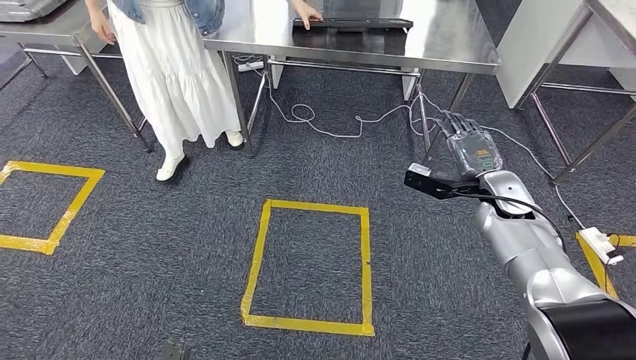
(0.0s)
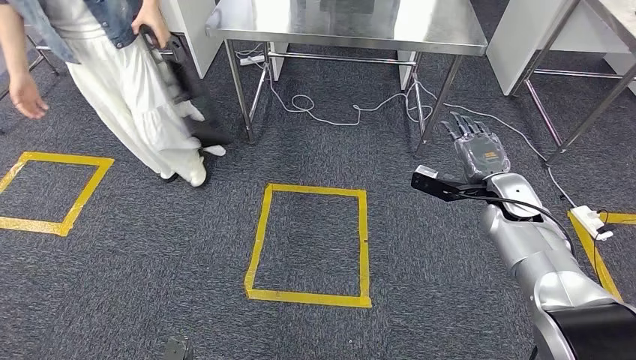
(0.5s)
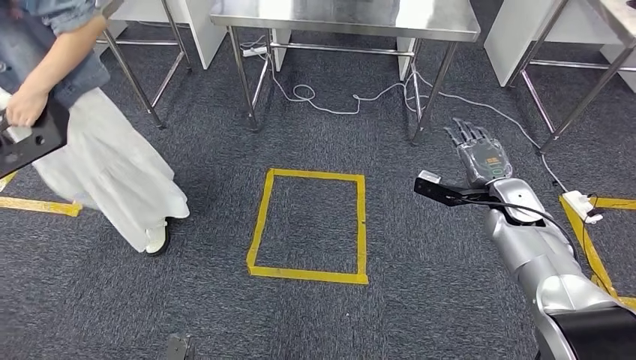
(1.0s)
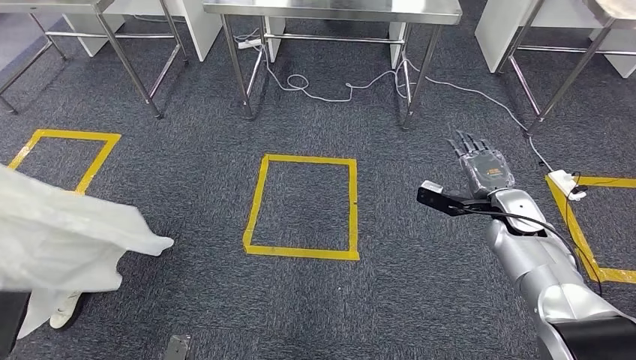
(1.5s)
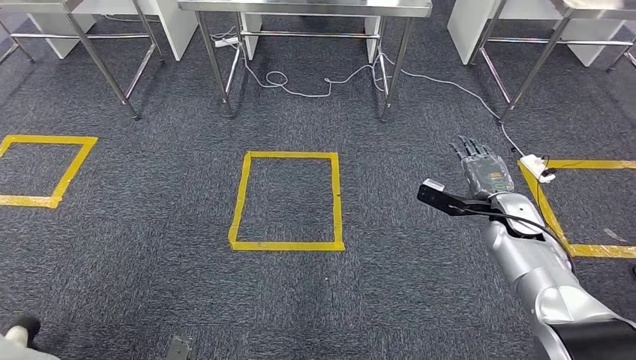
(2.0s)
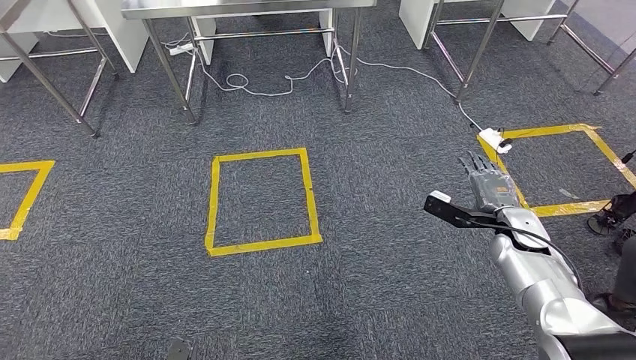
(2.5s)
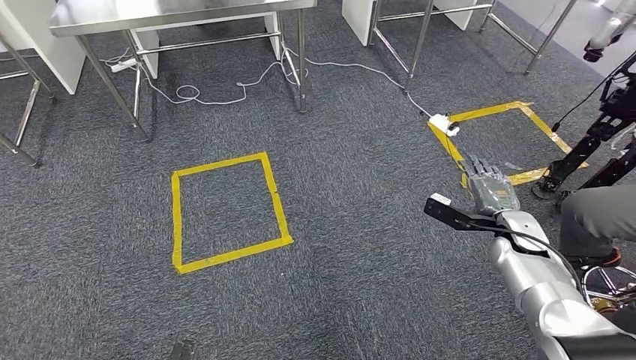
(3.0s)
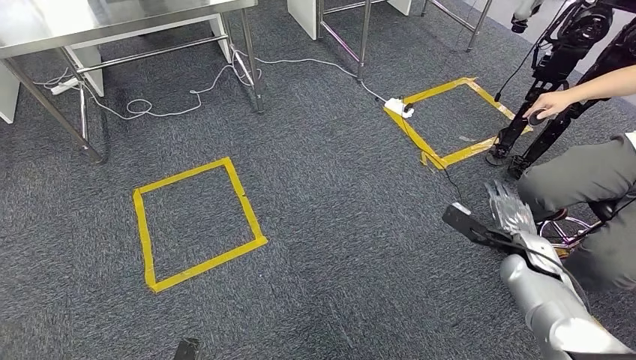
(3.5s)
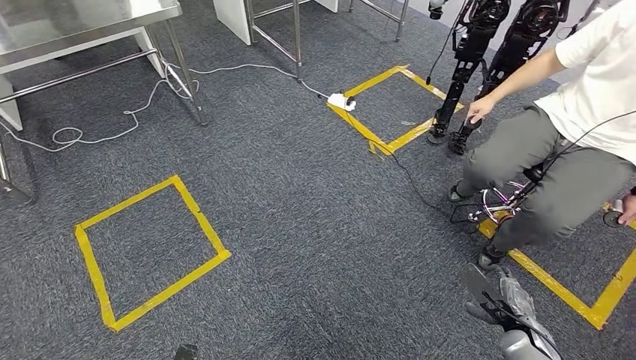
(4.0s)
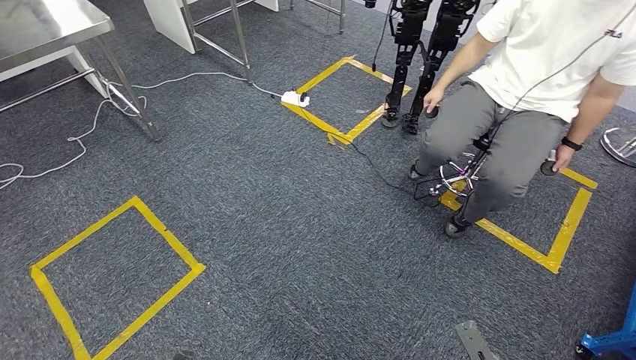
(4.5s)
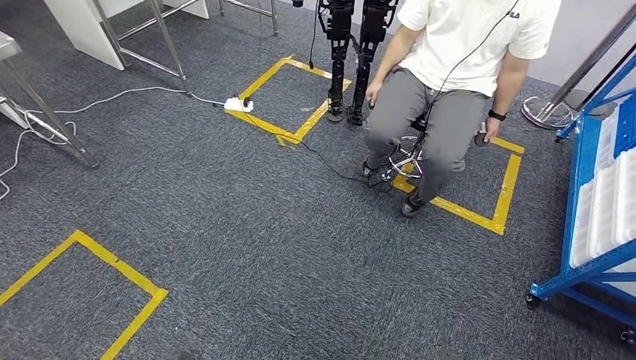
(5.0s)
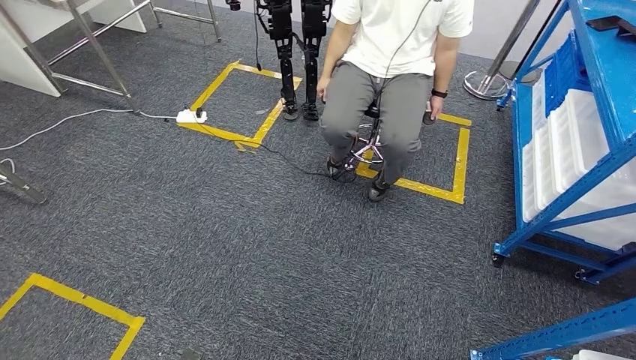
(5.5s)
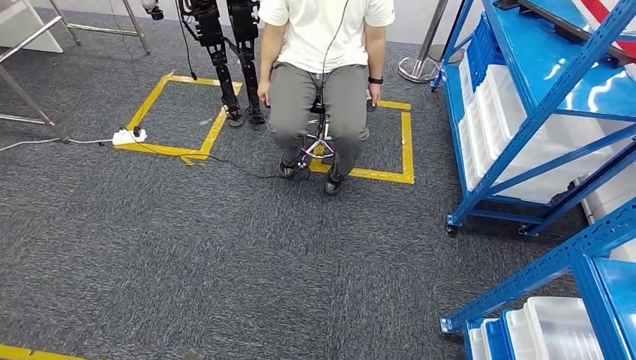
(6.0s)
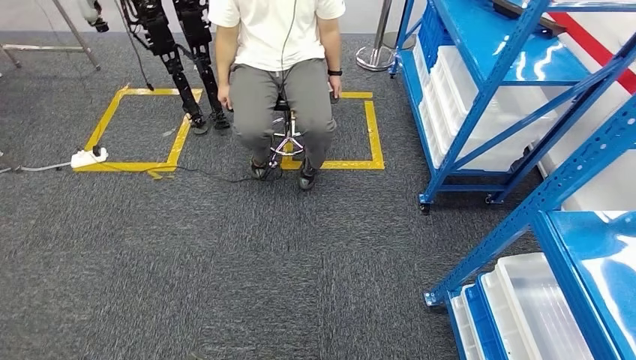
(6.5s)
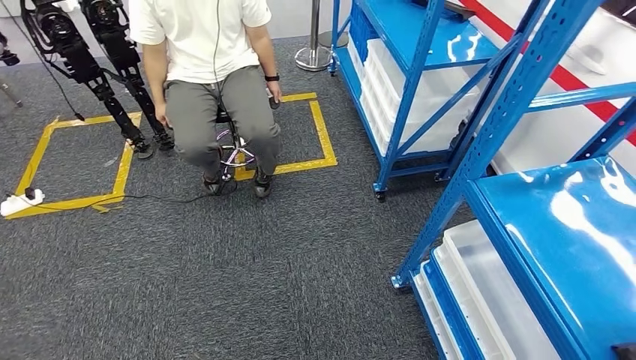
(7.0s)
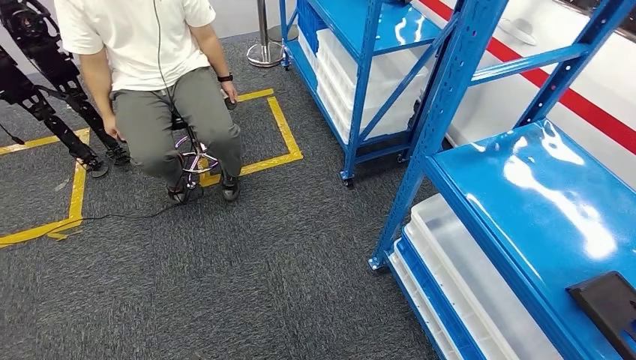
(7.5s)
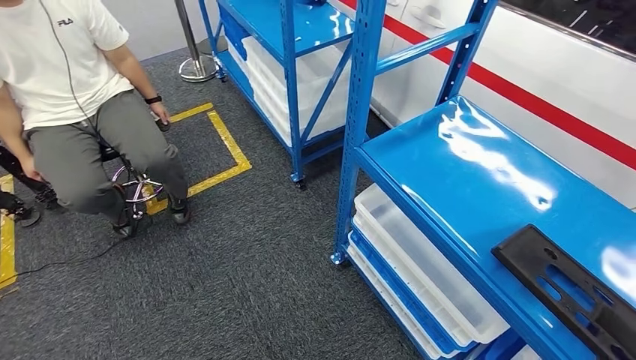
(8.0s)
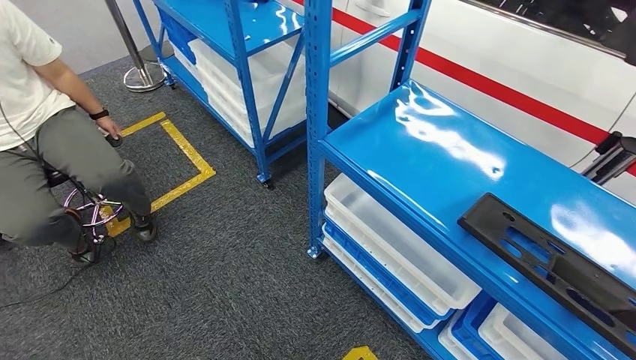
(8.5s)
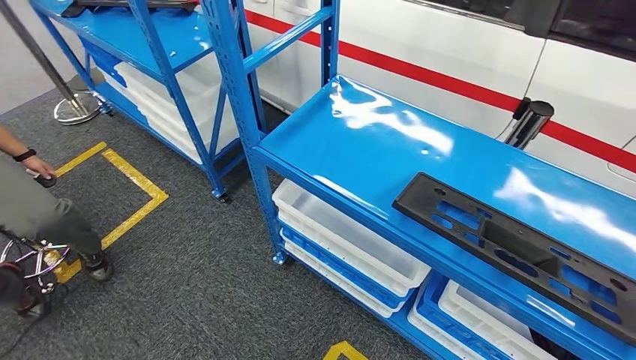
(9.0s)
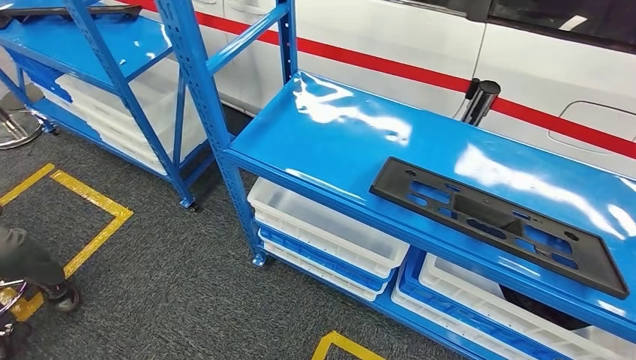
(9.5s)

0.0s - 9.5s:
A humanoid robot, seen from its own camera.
Step, 0.0s - 9.5s: Return to the initial position at the shelf.

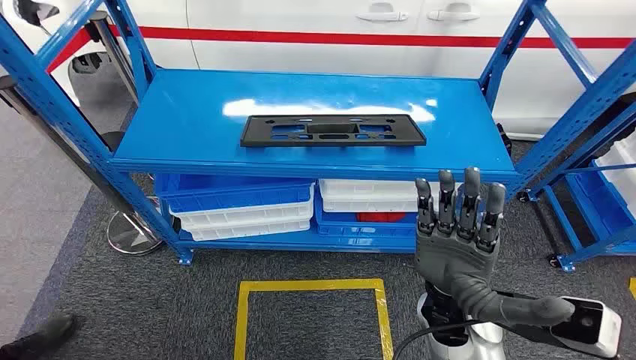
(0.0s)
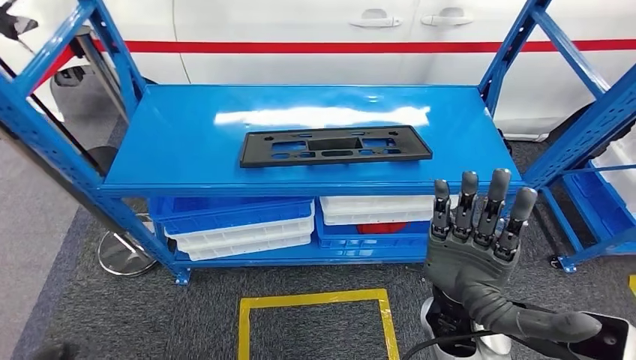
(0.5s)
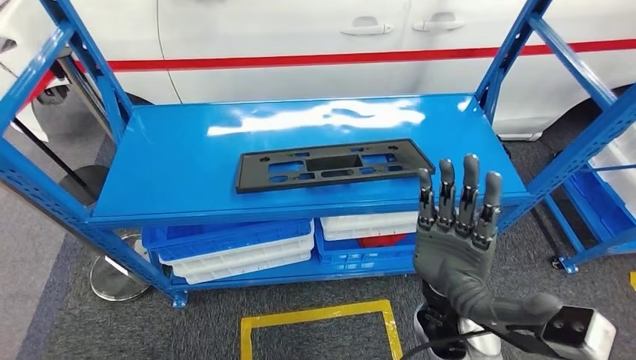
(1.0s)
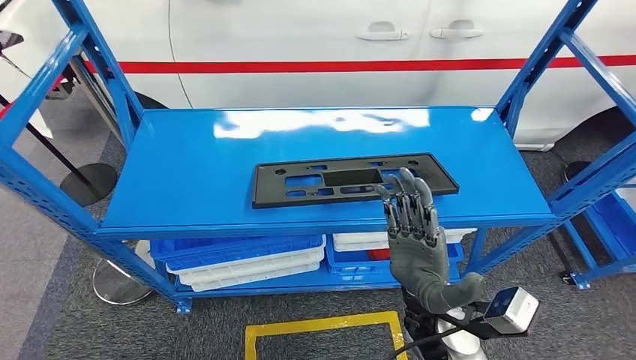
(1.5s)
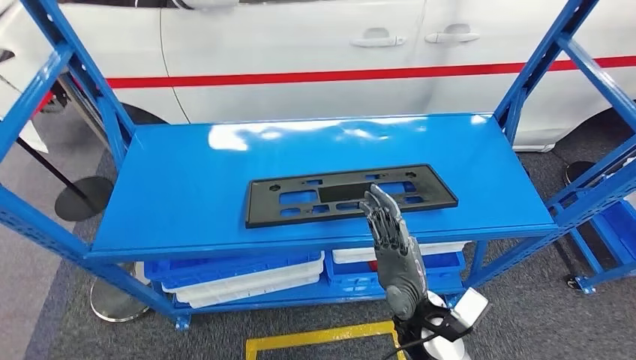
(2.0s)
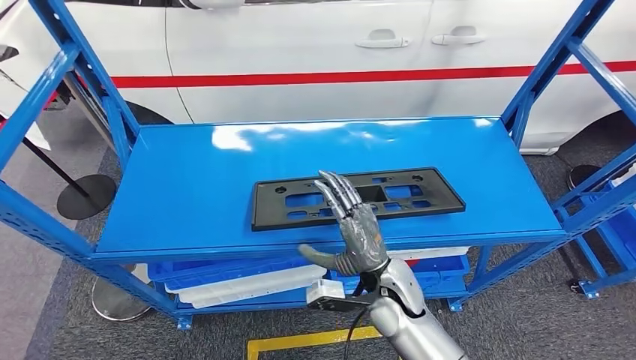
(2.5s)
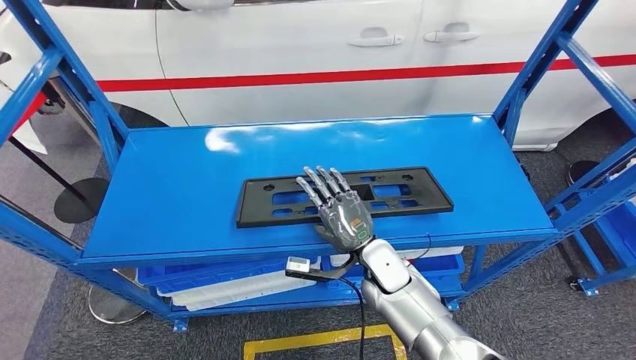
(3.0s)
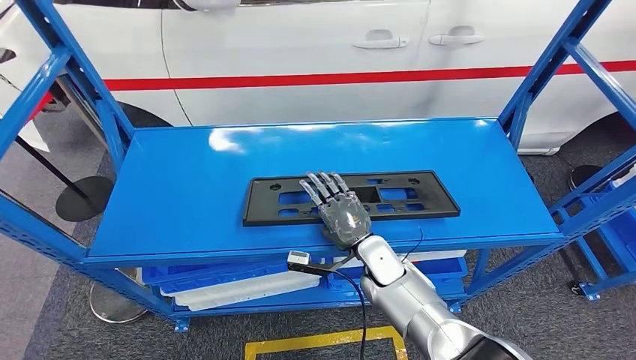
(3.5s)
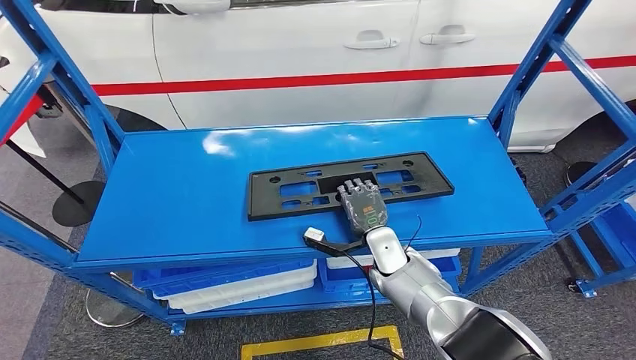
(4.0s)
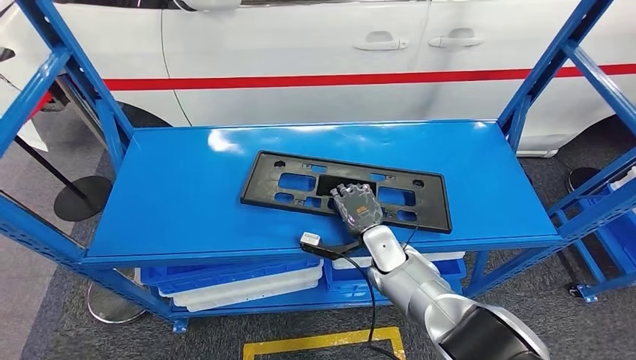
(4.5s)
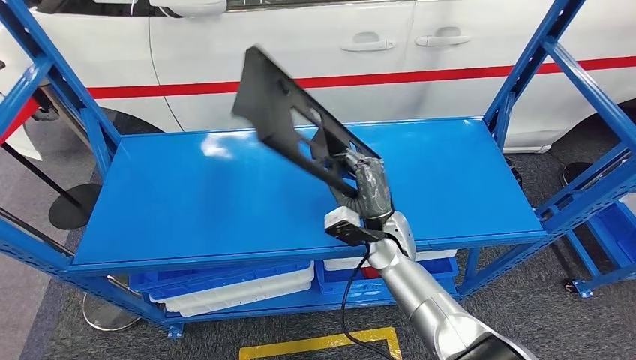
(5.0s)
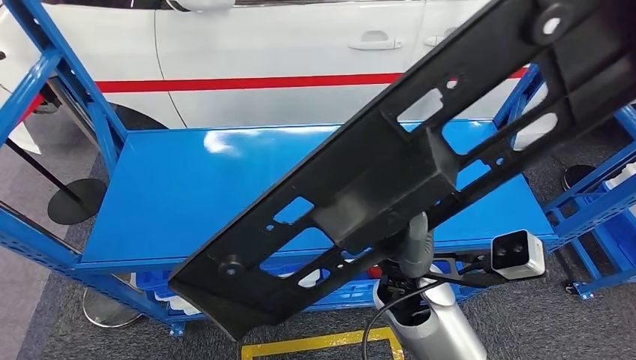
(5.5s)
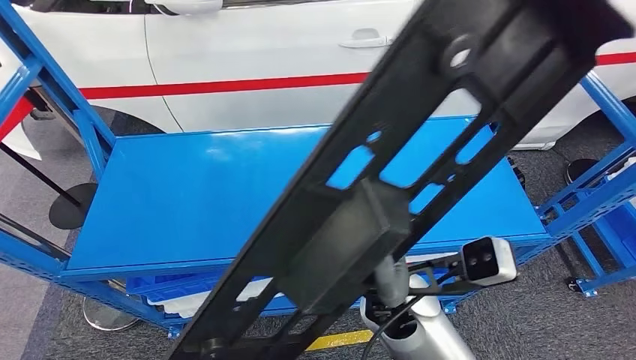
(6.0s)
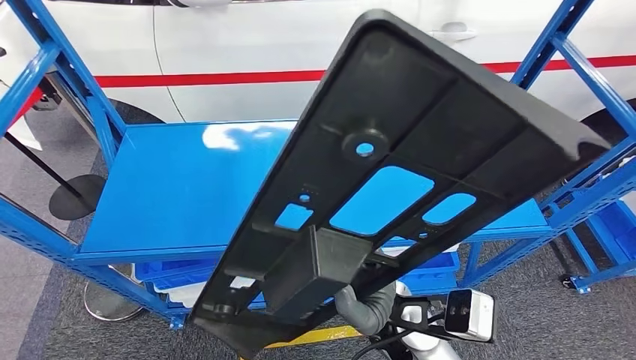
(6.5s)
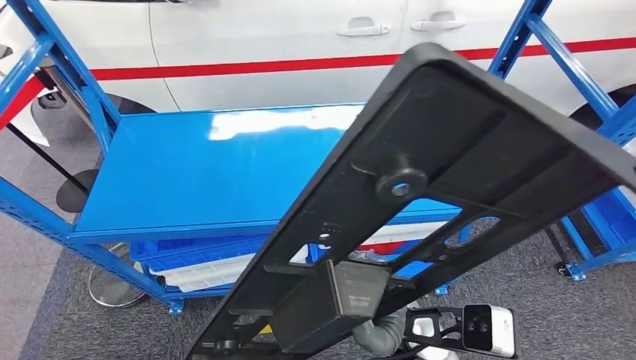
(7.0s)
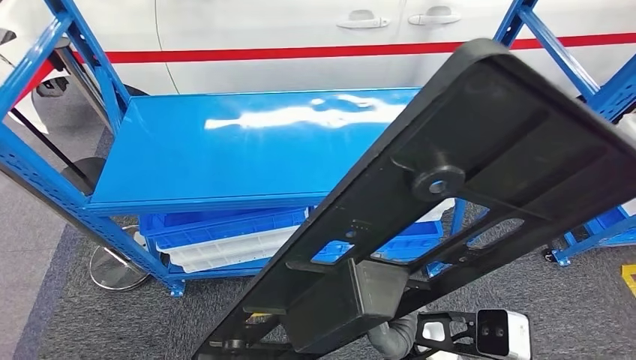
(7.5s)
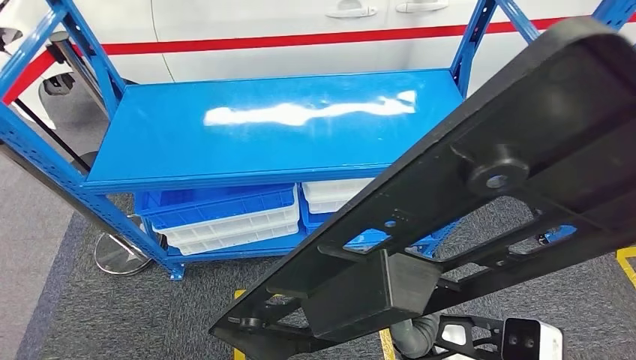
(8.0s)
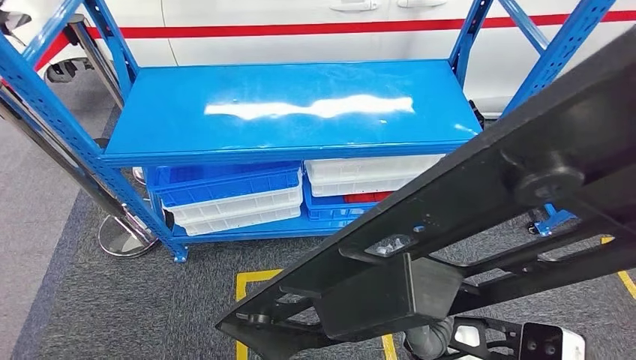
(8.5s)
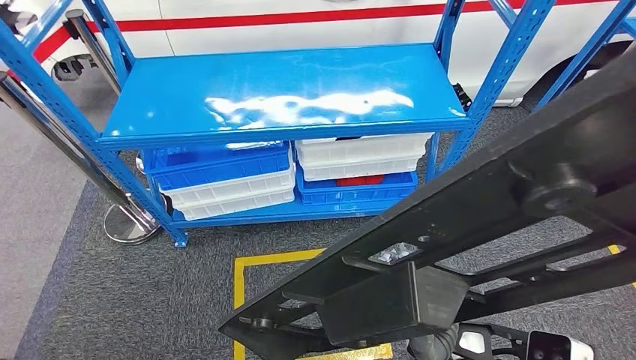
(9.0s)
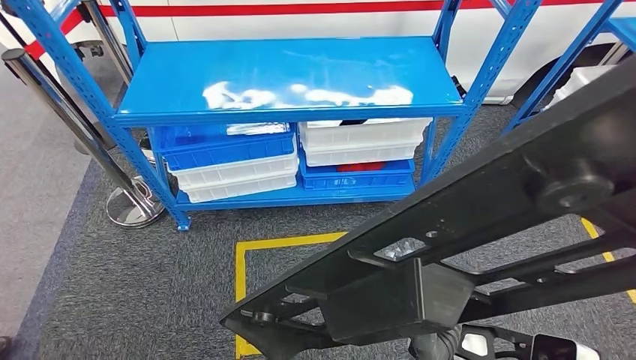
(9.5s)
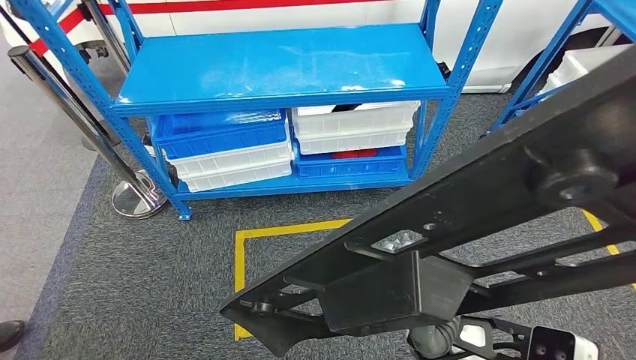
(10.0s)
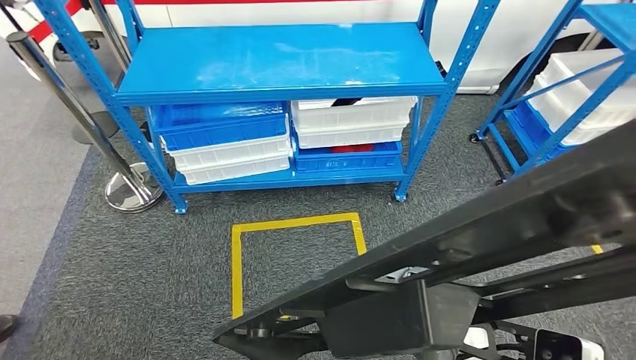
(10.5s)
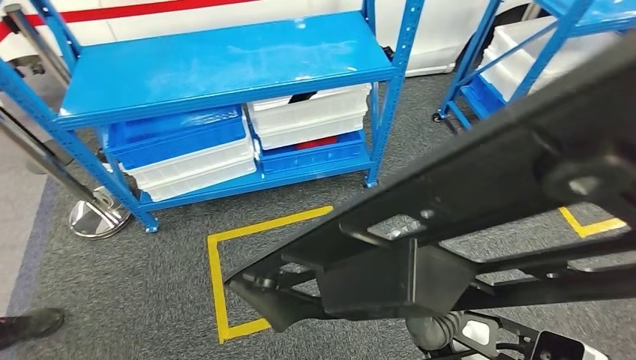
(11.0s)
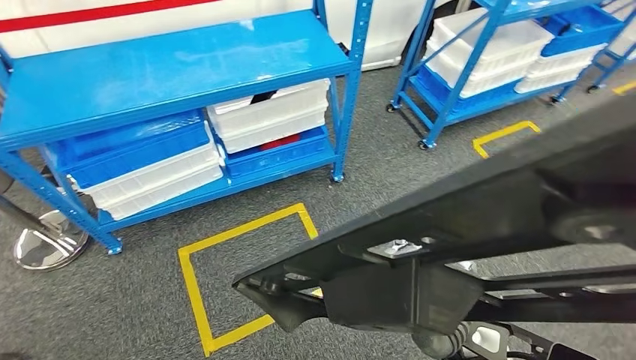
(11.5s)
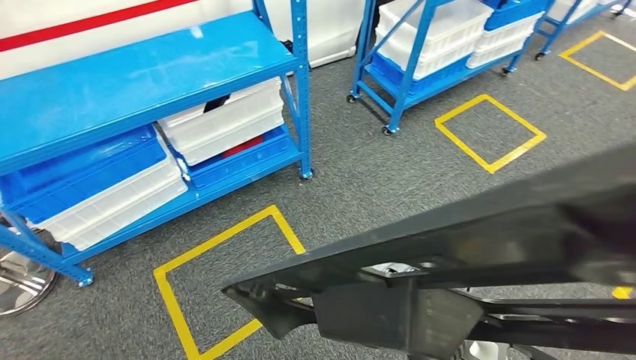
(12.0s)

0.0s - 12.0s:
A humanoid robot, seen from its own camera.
Step, 0.0s - 5.0s: Pick up the large material from the shelf.
